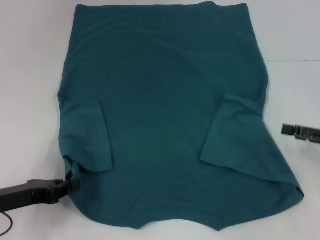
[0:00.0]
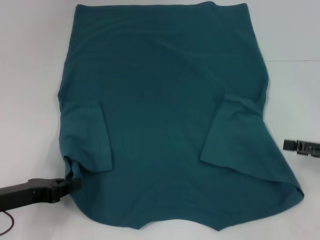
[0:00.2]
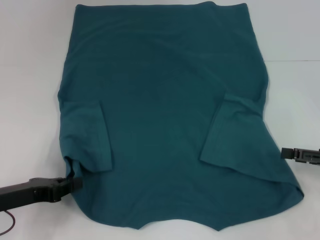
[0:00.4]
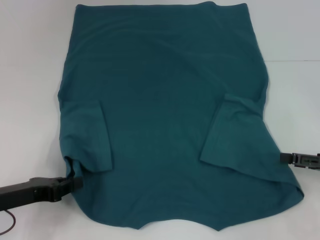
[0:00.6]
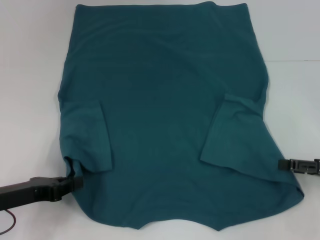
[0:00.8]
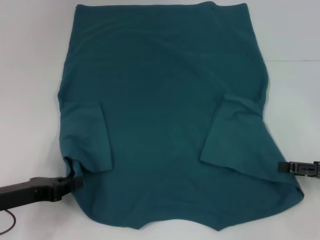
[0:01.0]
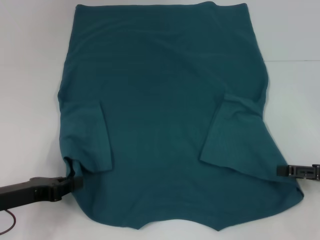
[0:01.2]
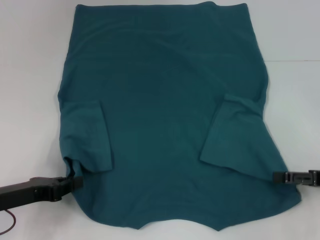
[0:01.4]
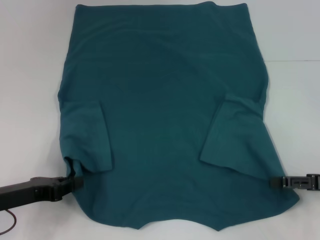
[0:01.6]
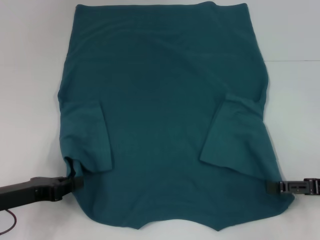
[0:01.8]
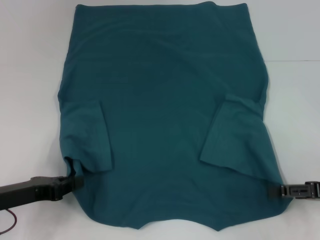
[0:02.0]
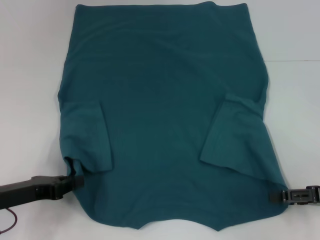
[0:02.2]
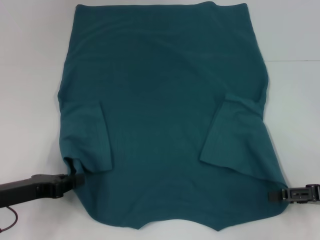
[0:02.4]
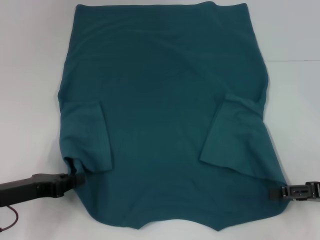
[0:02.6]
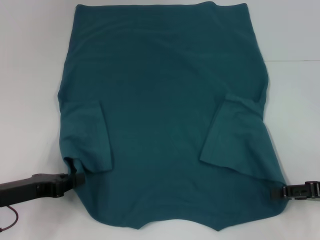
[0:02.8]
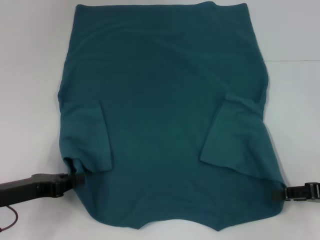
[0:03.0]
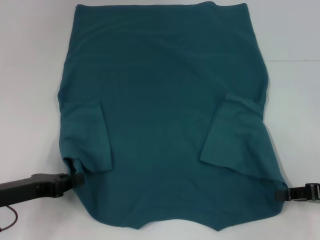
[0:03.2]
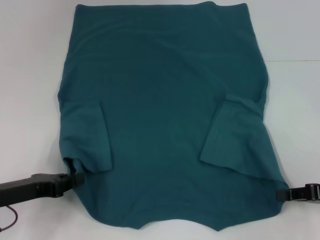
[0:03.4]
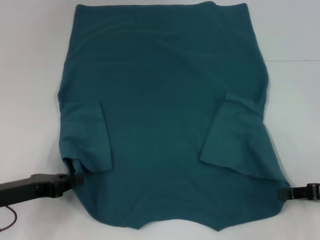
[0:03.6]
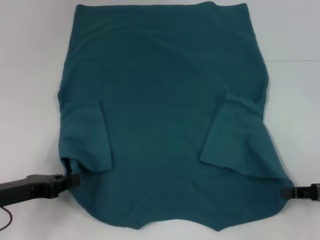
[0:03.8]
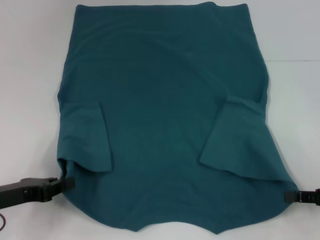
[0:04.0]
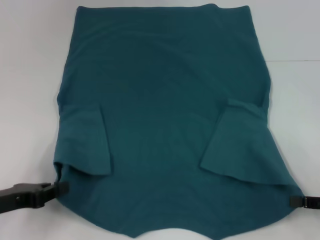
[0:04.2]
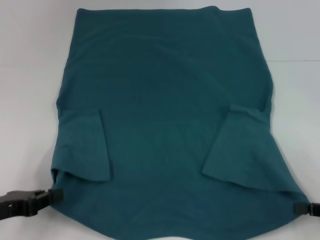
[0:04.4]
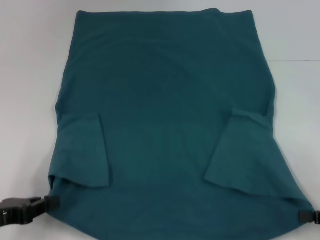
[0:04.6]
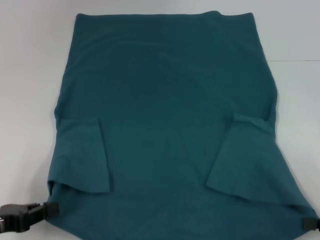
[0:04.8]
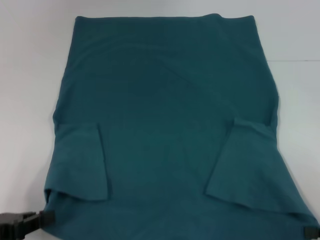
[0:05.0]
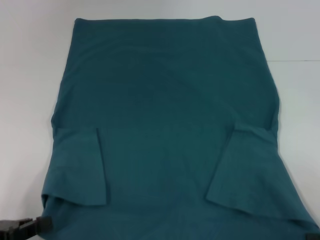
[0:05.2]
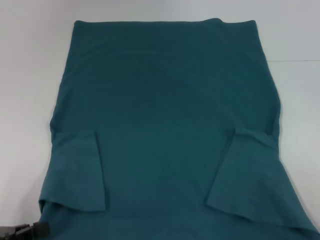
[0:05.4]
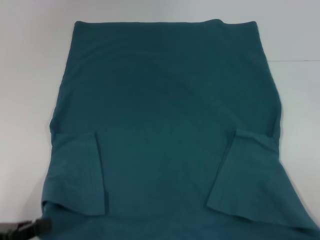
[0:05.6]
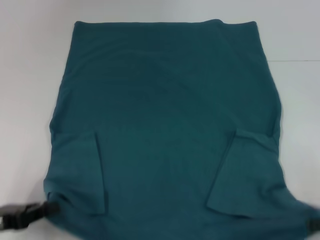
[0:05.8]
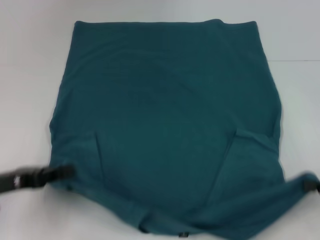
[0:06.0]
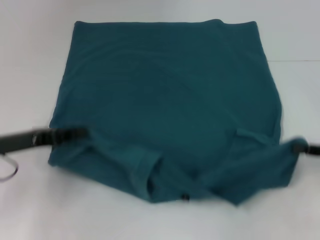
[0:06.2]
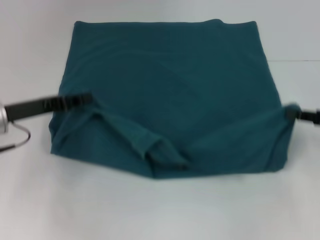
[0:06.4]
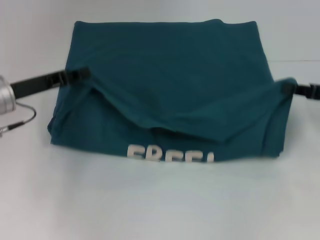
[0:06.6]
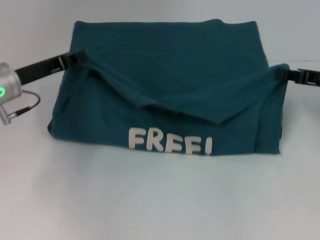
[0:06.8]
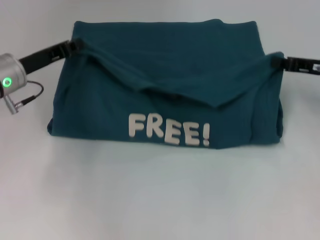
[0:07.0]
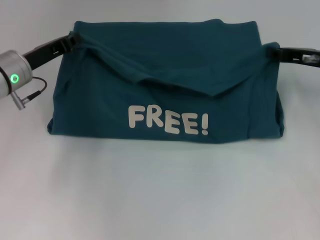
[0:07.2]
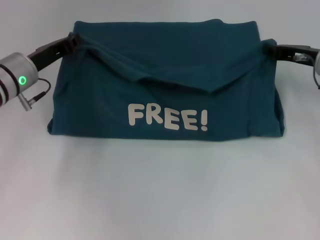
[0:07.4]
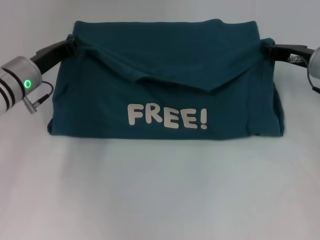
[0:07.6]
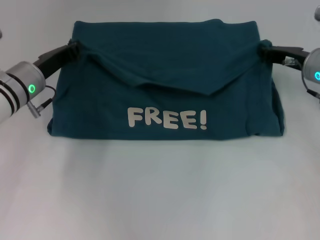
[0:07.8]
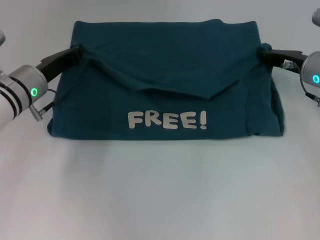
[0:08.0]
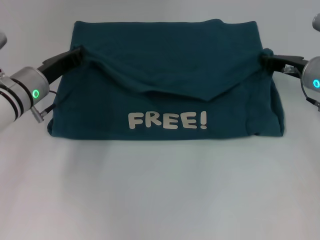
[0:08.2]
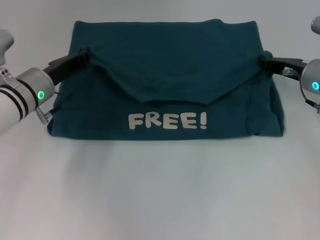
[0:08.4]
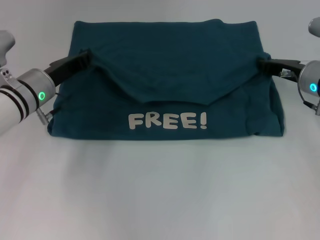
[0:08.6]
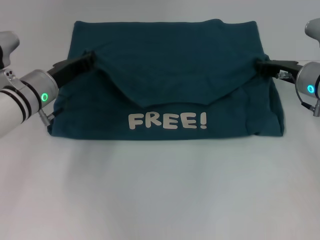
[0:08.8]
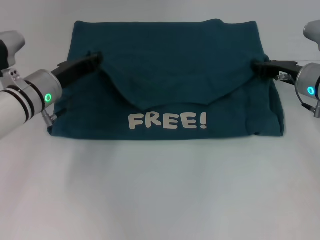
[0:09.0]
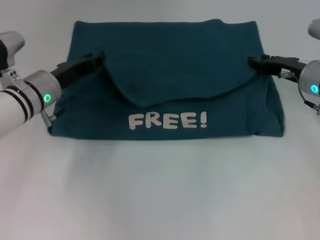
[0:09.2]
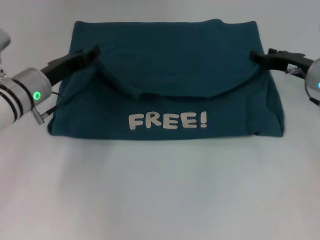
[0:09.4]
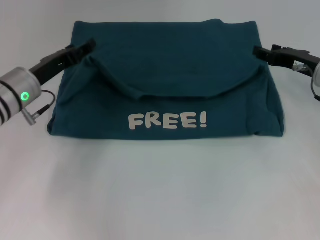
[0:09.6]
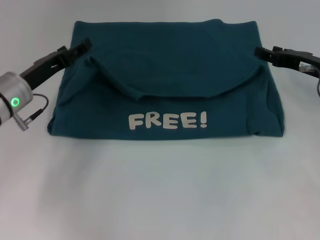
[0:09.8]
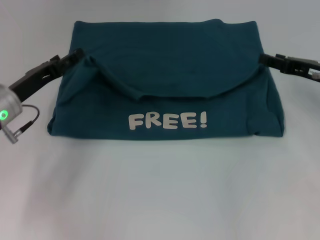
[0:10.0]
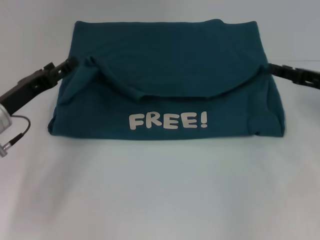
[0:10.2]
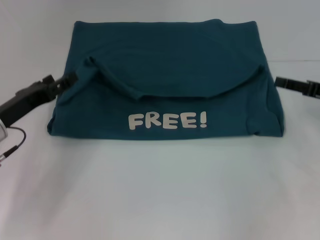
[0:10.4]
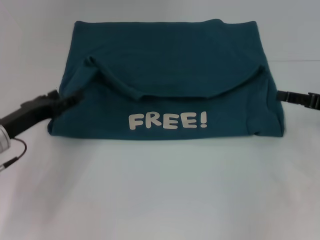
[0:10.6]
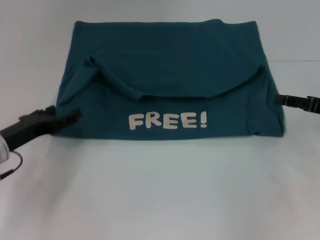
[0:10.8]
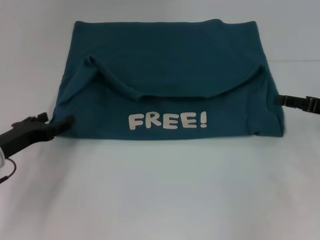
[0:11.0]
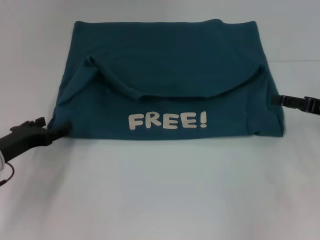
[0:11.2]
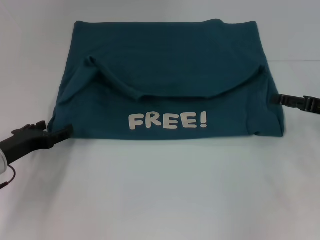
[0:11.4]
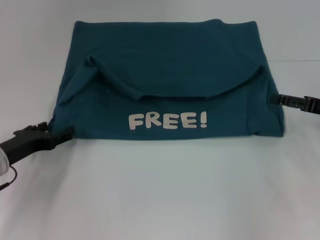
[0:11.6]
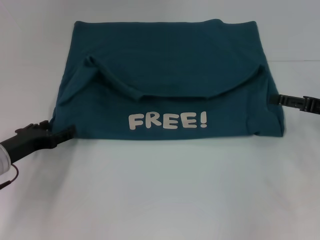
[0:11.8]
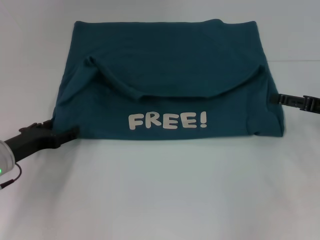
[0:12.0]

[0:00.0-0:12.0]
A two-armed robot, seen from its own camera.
Step, 0:00.0 to 0:03.6: Grab the bottom right corner with your right hand.
Step, 0:03.8 to 0:09.8: Fold the clothes to the left.
Step, 0:03.8 to 0:09.8: Fold the clothes to the right.
0:00.0 to 0:01.6: There are only small adjustments of the grippers.
0:01.6 to 0:03.0: The right gripper closes up.
0:03.0 to 0:04.4: The right gripper changes place by roughly 5 cm, and closes its fingers.
0:04.4 to 0:06.0: The left gripper goes backward and returns, some 5 cm each way.
0:06.0 to 0:07.6: The right gripper goes approximately 25 cm forward and to the left. The left gripper heads forward and to the right, covering about 20 cm.
0:07.6 to 0:09.0: The grippers make only small movements.
0:09.0 to 0:10.4: The left gripper shifts about 10 cm backward and to the left, and opens. Meanwhile the right gripper heads to the right and backward, covering roughly 10 cm, and opens its fingers.

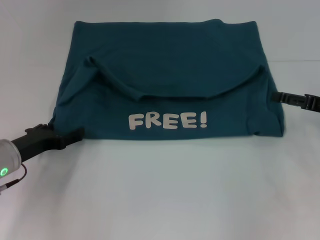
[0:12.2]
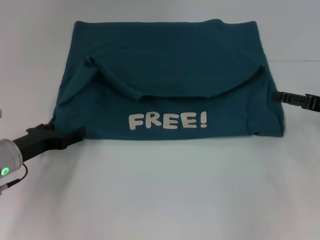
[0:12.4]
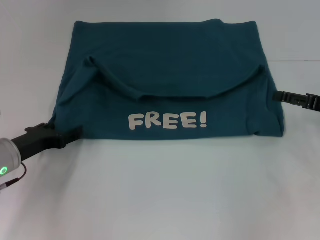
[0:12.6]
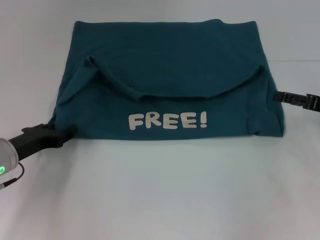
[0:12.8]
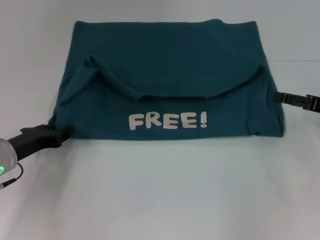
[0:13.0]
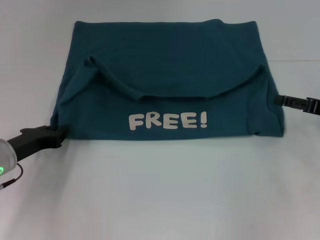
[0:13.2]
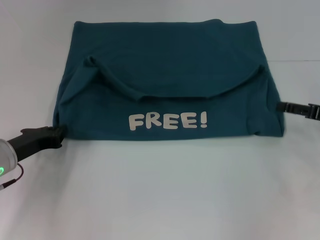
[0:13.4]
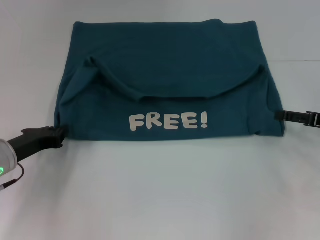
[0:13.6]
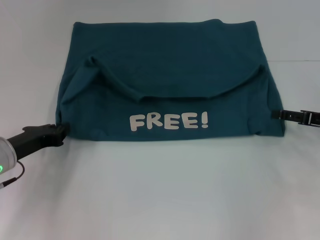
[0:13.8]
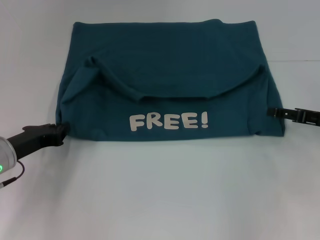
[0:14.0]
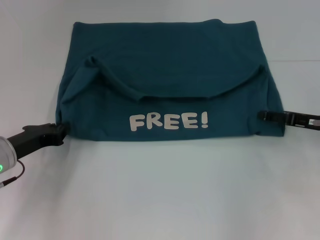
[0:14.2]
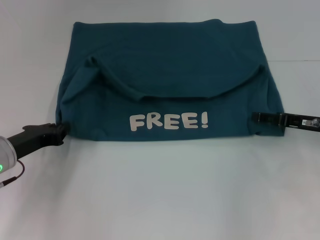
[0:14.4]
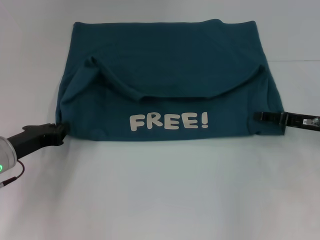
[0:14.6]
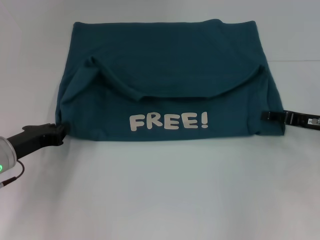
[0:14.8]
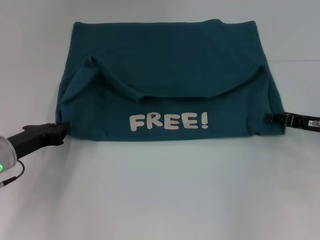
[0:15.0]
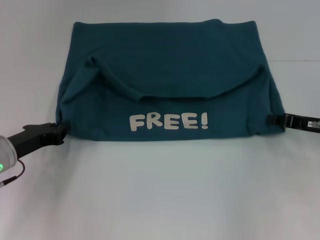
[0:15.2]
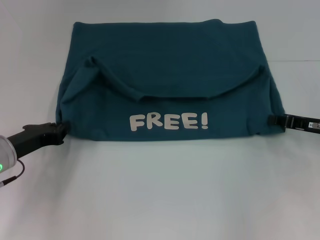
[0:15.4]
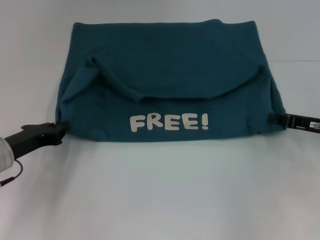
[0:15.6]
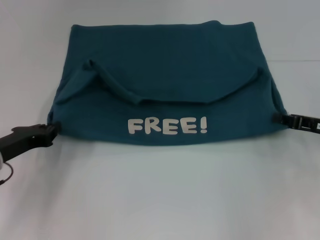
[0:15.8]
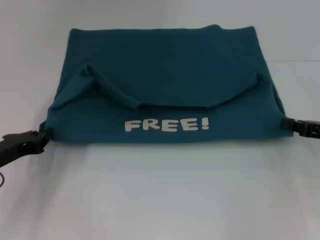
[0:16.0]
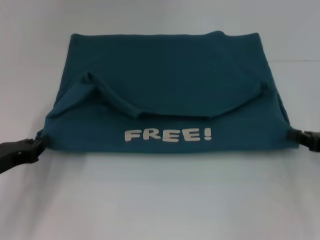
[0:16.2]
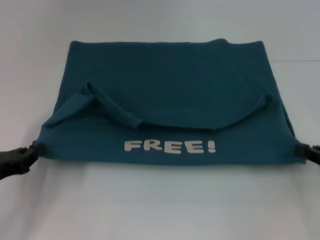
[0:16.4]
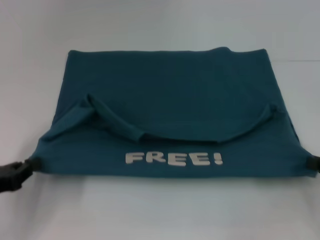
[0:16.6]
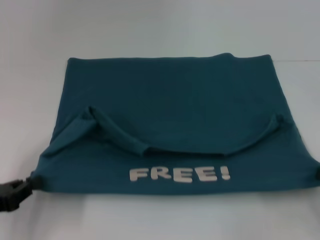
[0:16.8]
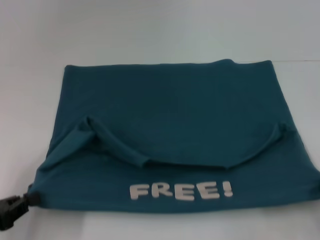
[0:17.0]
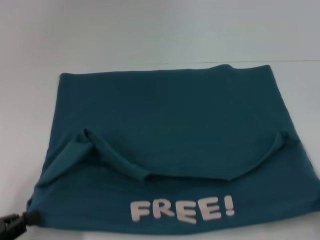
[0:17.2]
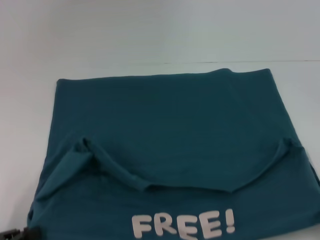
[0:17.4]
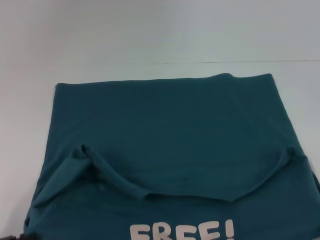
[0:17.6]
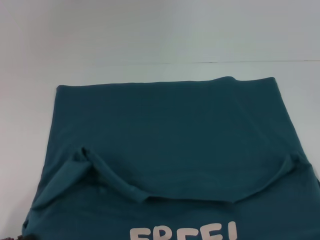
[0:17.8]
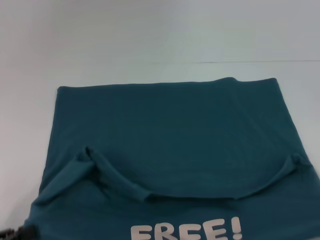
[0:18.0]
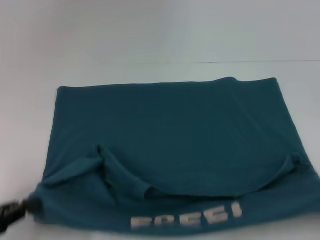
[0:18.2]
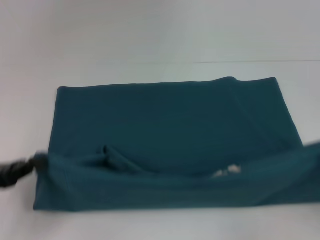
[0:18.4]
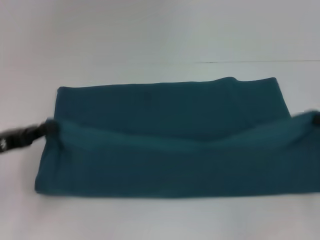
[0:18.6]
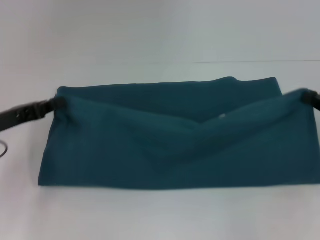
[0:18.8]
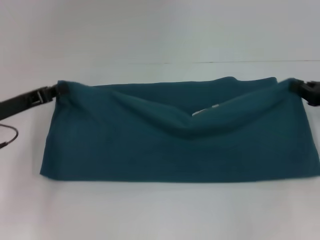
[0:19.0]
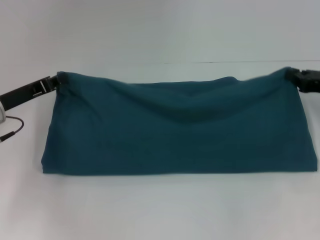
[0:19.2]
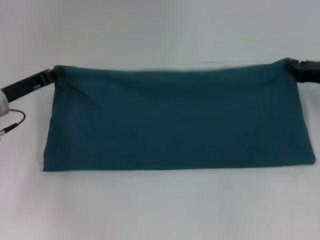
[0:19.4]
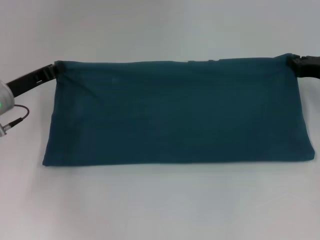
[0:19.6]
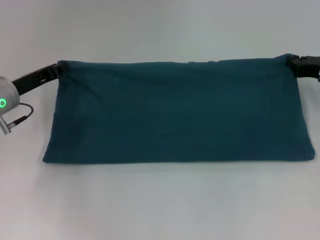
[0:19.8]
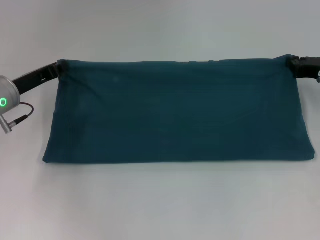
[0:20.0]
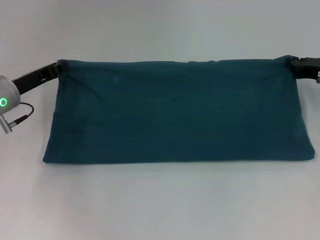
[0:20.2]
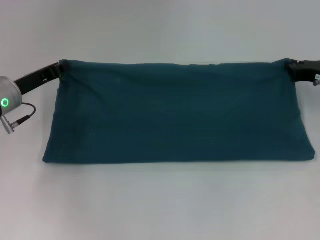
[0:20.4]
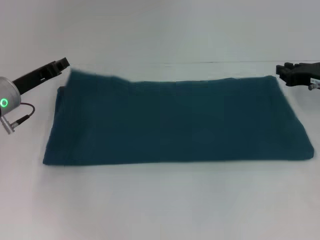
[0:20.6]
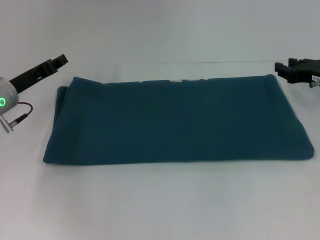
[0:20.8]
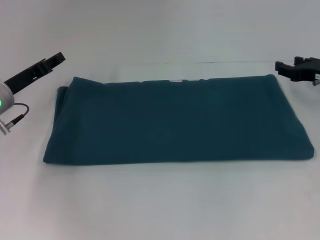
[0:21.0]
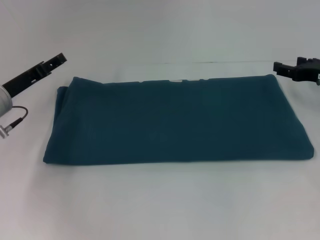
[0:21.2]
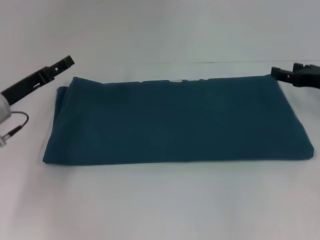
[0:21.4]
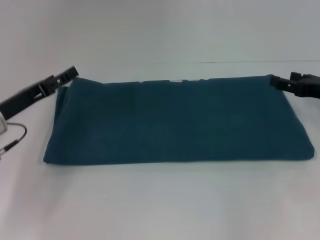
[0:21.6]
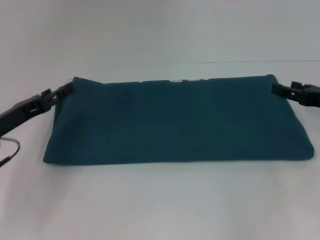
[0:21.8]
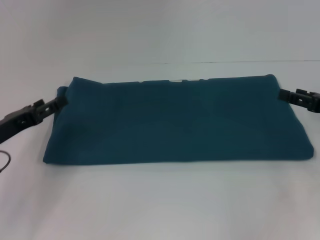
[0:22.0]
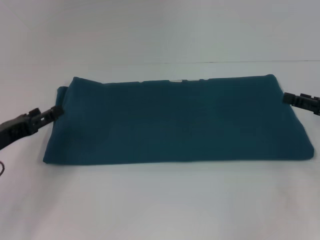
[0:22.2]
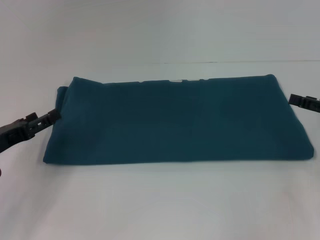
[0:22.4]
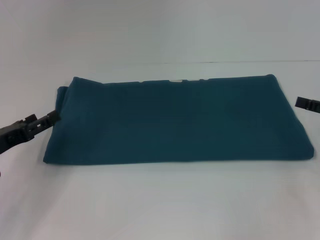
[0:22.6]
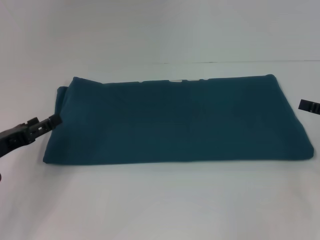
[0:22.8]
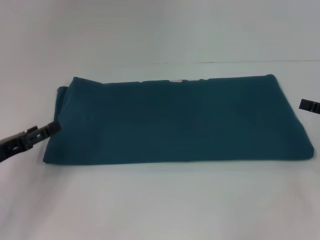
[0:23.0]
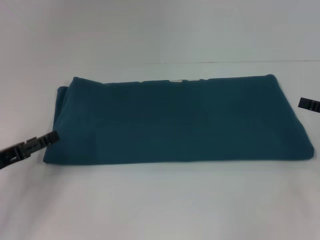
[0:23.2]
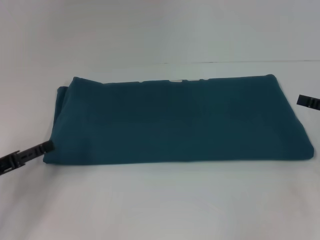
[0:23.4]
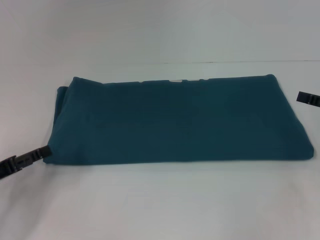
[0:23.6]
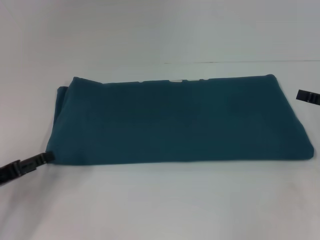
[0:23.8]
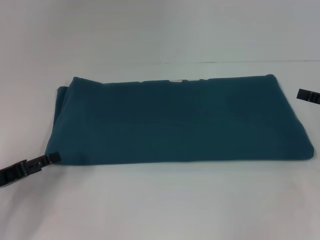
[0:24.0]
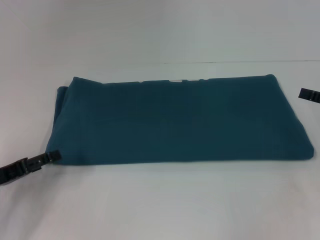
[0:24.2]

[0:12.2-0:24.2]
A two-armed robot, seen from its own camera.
Step, 0:12.2 to 0:17.0: Pull the clothes with your left hand.
Step, 0:12.2 to 0:17.0: Pull the clothes with your right hand.
Step, 0:17.2 to 0:20.8: Fold the clothes to the right.
0:12.2 to 0:13.8: The left gripper closes its fingers.
0:13.8 to 0:15.2: The right gripper closes its fingers.
0:15.2 to 0:16.6: The right gripper moves backward and to the right, about 15 cm. The left gripper goes approximately 10 cm backward and to the left.
0:16.6 to 0:18.2: The two grippers go roughly 5 cm backward.
0:18.2 to 0:19.8: The grippers both shift forward by approximately 25 cm.
0:19.8 to 0:21.2: The left gripper opens up. Meanwhile the right gripper opens its fingers.
0:21.2 to 0:22.6: The left gripper is displaced backward by some 10 cm, and opens up, while the right gripper shifts about 10 cm backward and to the right.
